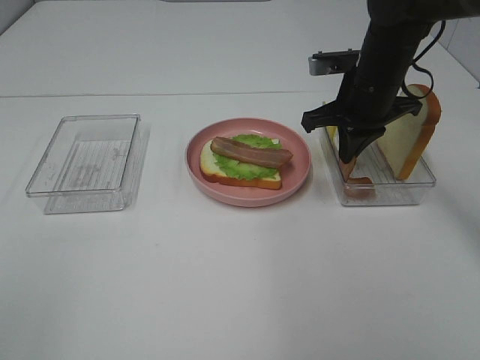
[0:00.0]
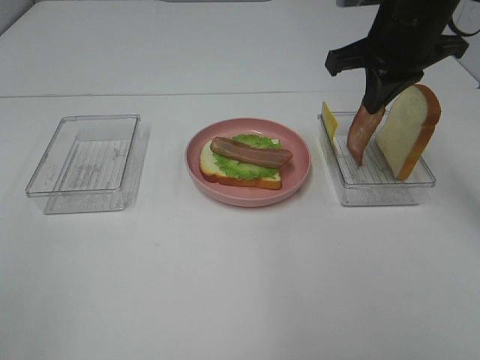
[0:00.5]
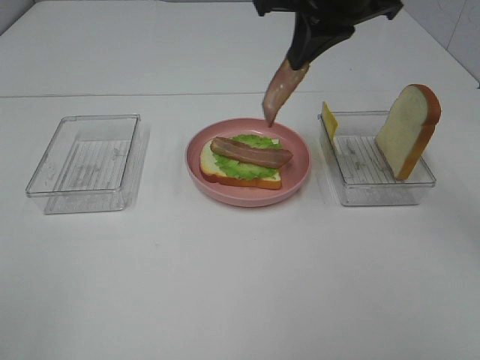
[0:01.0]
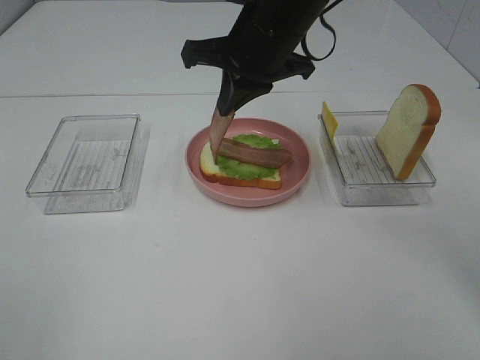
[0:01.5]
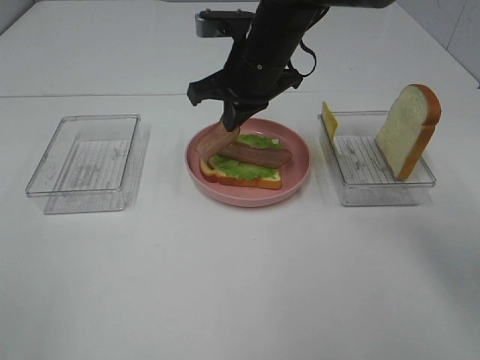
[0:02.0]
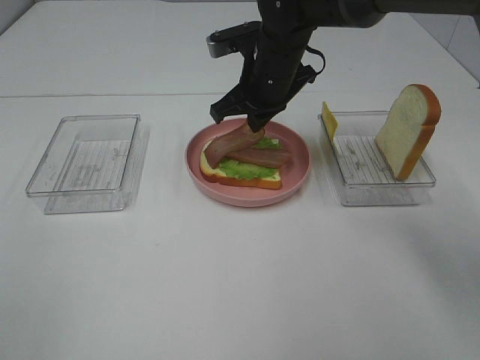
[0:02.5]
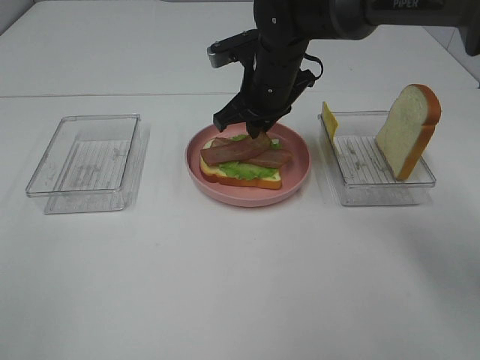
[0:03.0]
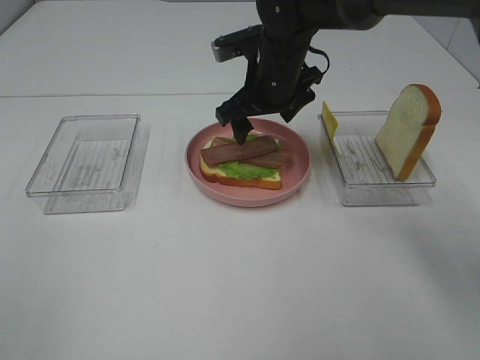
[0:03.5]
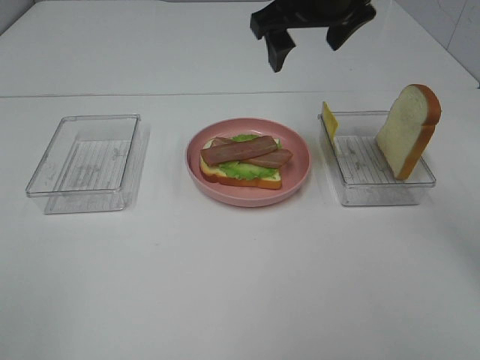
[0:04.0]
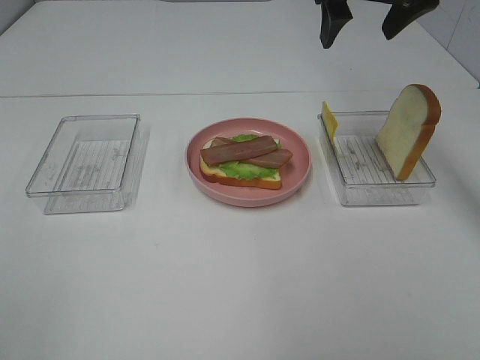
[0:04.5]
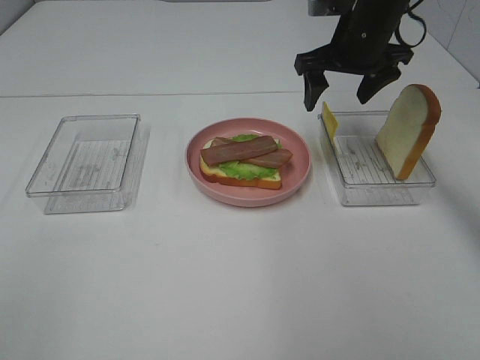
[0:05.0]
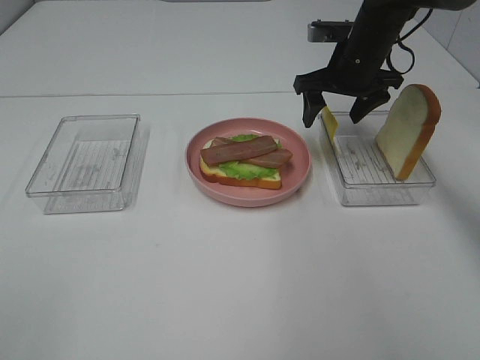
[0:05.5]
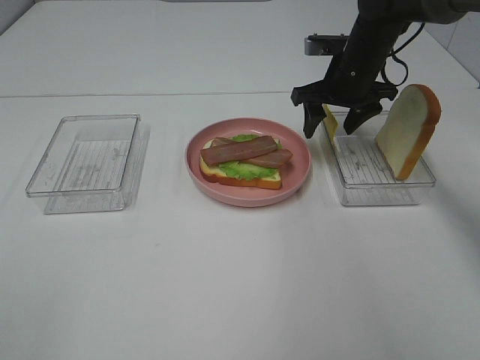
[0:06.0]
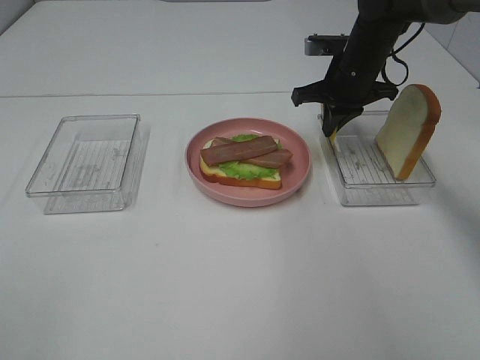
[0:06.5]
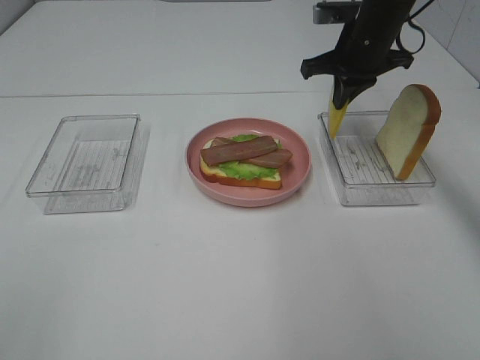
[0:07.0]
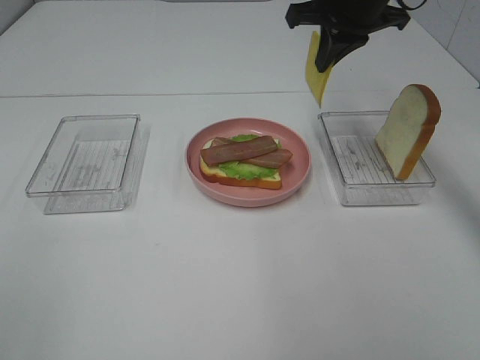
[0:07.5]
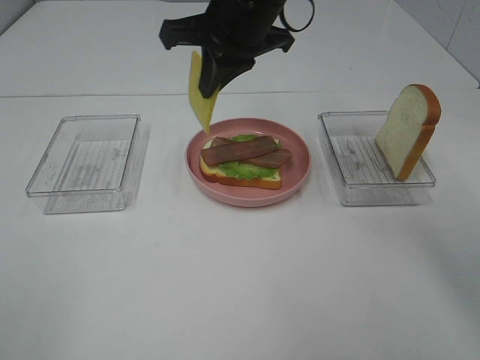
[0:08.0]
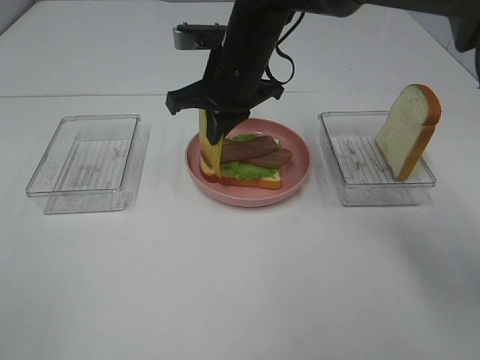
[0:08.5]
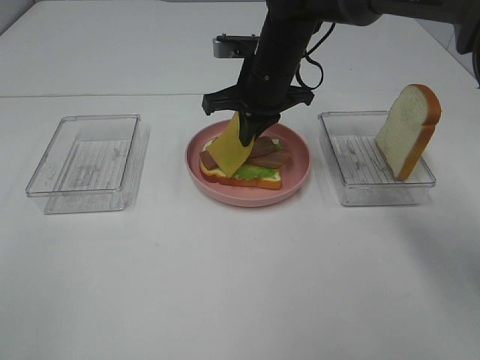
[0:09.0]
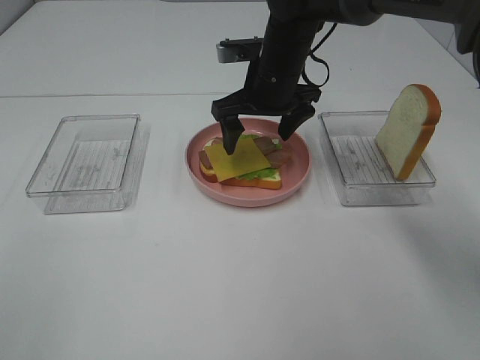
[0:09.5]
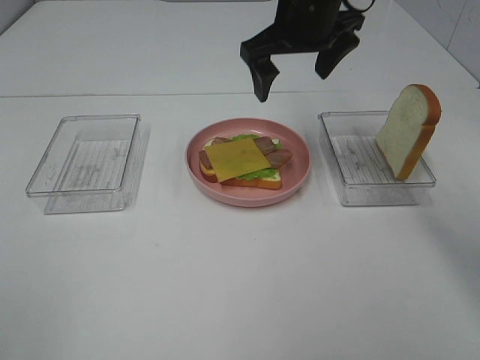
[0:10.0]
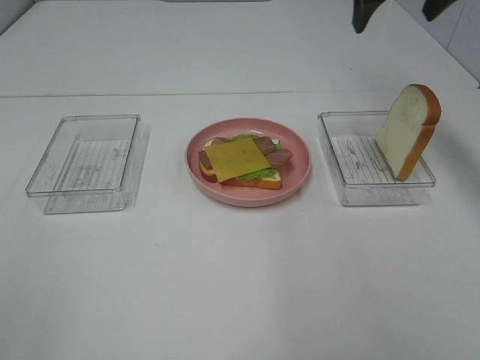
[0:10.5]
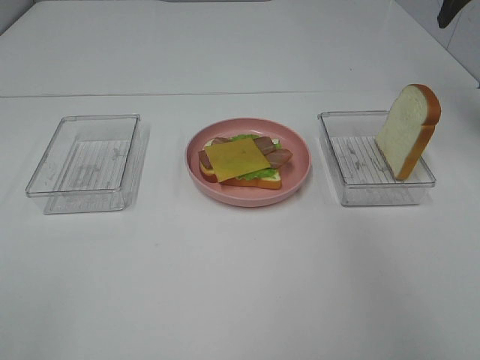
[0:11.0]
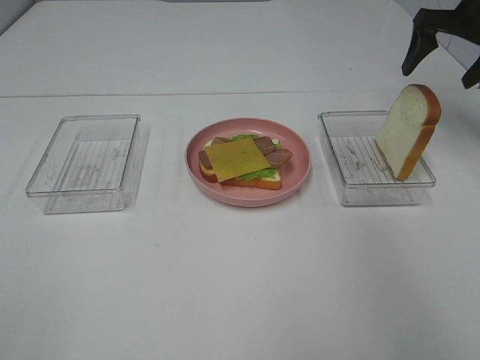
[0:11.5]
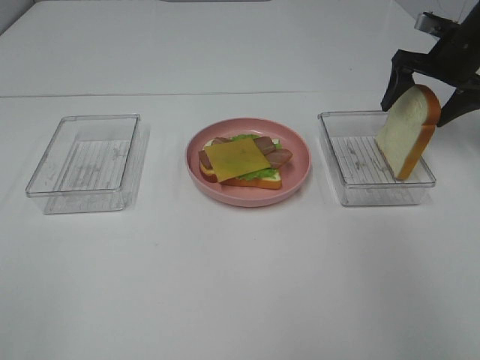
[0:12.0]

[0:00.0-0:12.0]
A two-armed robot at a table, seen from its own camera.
Task of the whole recording: Make sandwiches.
Step, 0:00.5 to 0:03.5: Right hand:place bacon on bacon.
Step, 0:04.0 to 0:06.5: Right hand:grab the cheese slice.
Step, 0:07.0 to 0:09.5: Right hand:place the cheese slice on top of the bacon.
0:00.0 to 0:02.0: The right gripper travels to the left by roughly 15 cm.
0:02.0 to 0:04.0: The right gripper moves upward and to the right, approximately 10 cm, and opens up.
0:04.0 to 0:06.0: The right gripper travels downward, forward and to the right by approximately 20 cm.
0:06.0 to 0:08.0: The right gripper travels to the left, upward and backward by roughly 20 cm, and closes up.
0:08.0 to 0:10.0: The right gripper heads to the right, covering some 5 cm, reaches some 10 cm downward, then returns, and opens its fingers.
0:10.0 to 0:12.0: The right gripper shifts some 25 cm to the right.

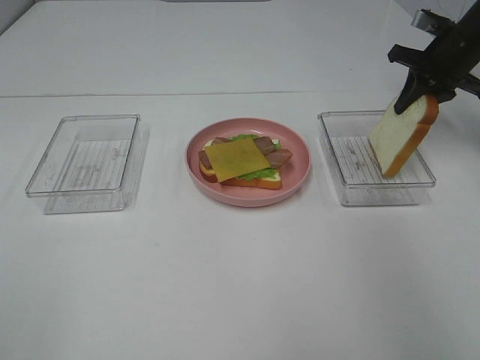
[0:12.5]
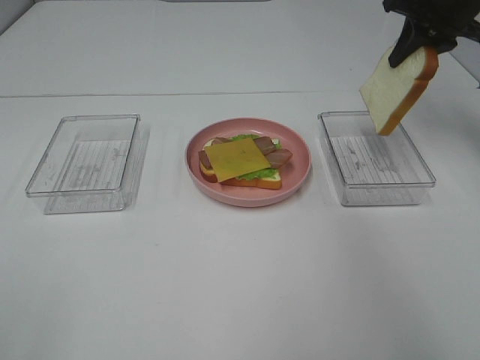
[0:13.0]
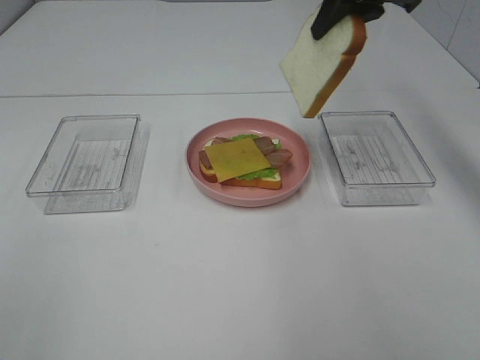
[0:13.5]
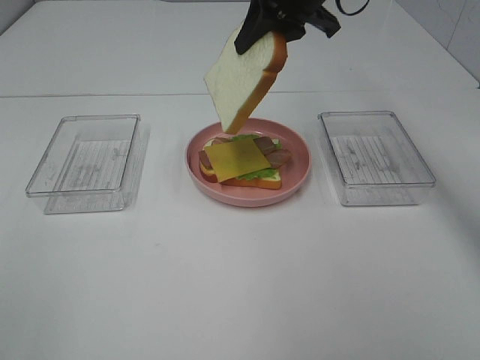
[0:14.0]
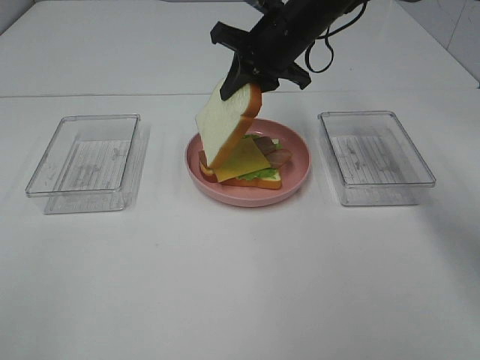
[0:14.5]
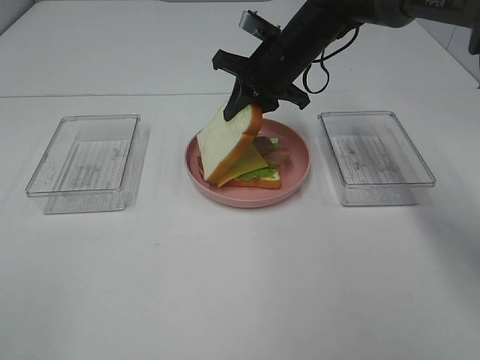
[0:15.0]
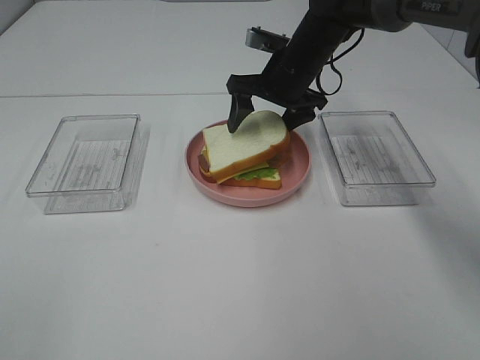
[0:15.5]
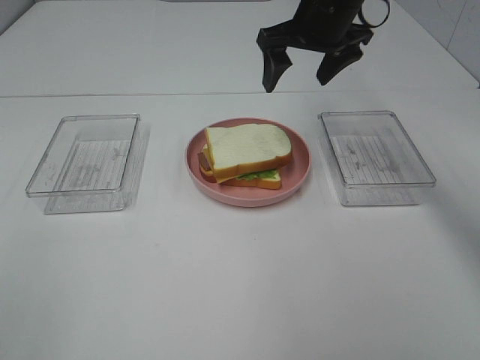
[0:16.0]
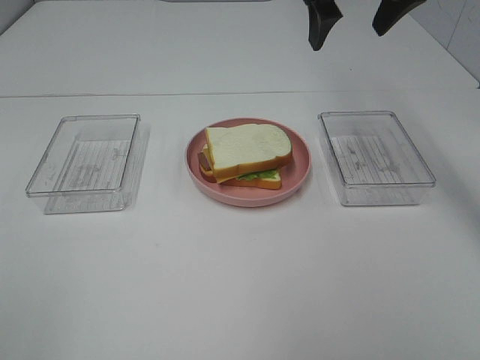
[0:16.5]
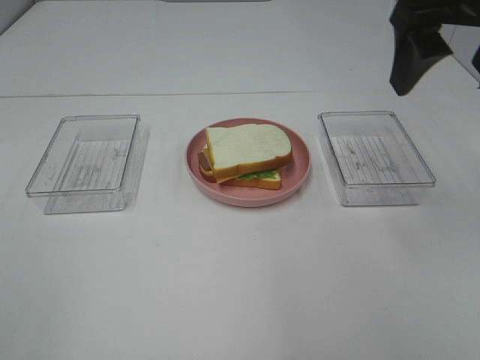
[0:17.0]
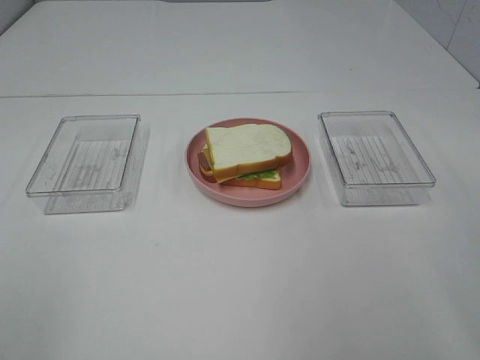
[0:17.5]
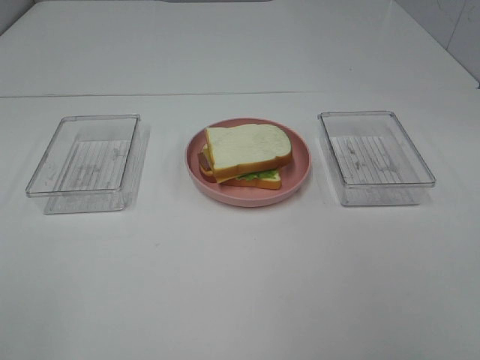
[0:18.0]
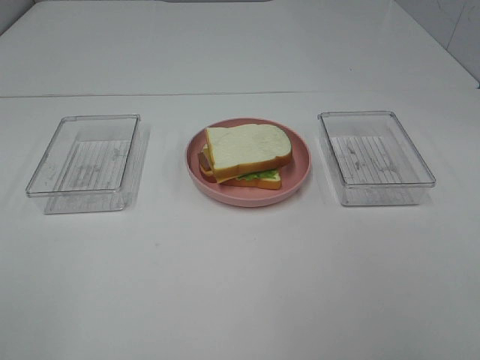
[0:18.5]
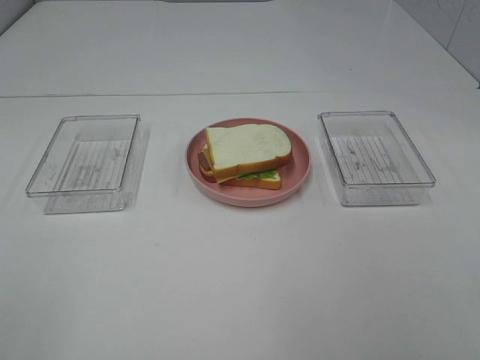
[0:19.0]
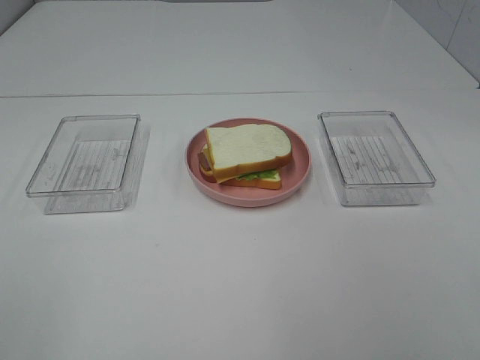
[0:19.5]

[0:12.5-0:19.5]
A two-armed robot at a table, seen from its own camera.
Task of the whole recording: Make sandwiches.
Step, 0:12.5 to 0:16.0: Right hand:place the bread slice on the cheese slice.
0:12.5 to 0:14.5: The right gripper travels to the left by some 25 cm.
0:14.5 to 0:16.0: The right gripper moves upward, roughly 5 cm, and opens.
0:16.0 to 0:17.5: The right gripper is displaced backward and to the right by about 35 cm.

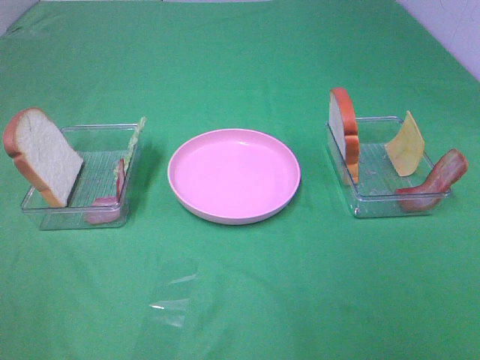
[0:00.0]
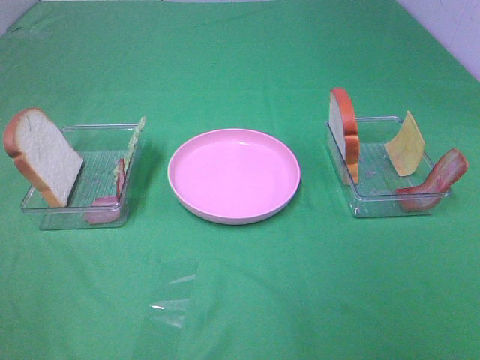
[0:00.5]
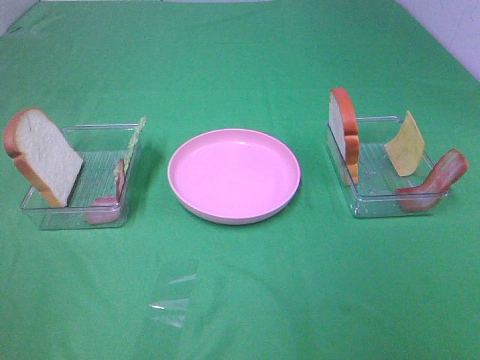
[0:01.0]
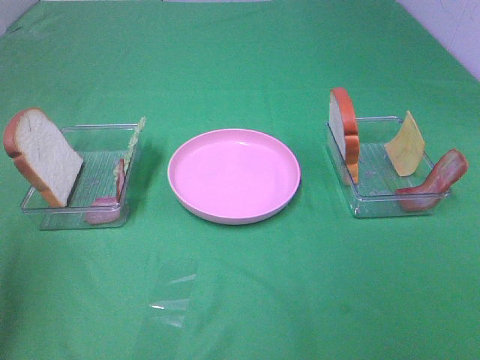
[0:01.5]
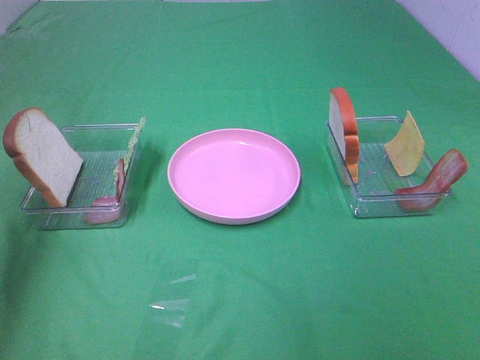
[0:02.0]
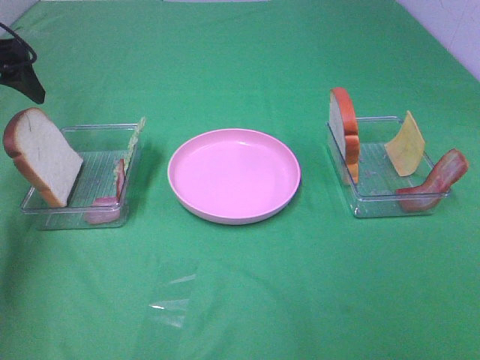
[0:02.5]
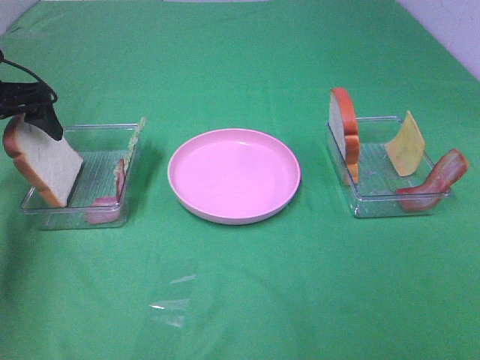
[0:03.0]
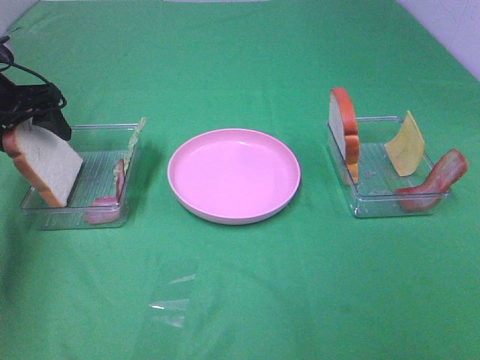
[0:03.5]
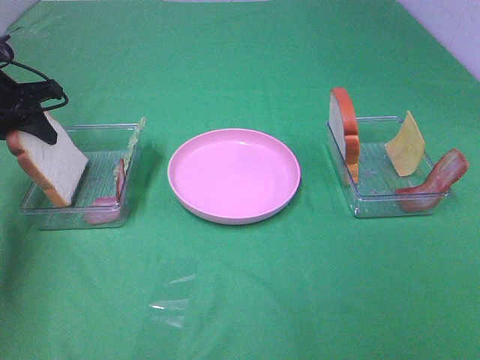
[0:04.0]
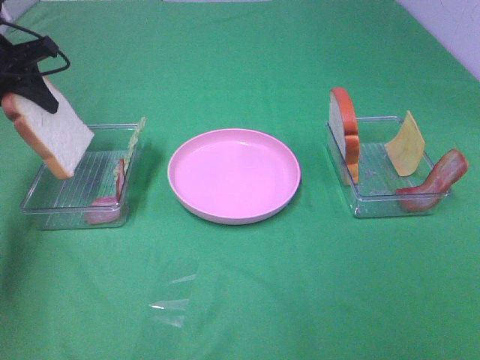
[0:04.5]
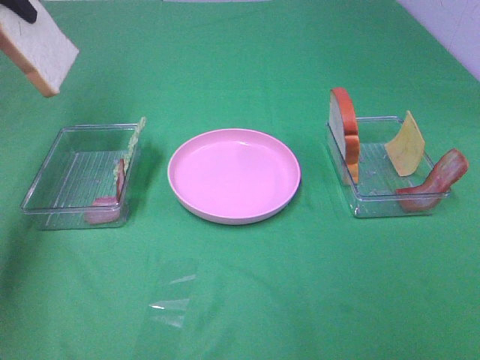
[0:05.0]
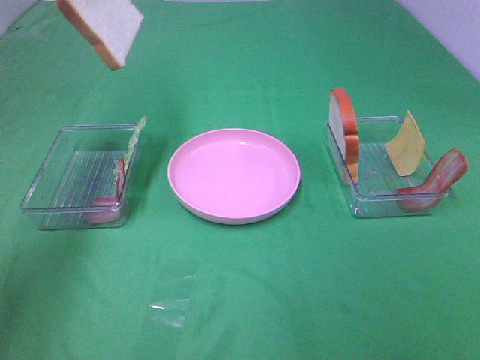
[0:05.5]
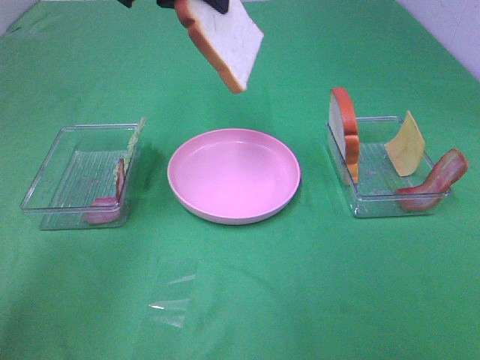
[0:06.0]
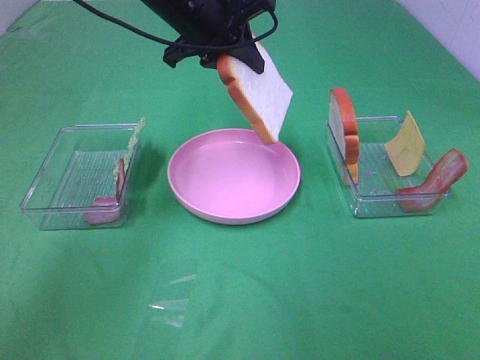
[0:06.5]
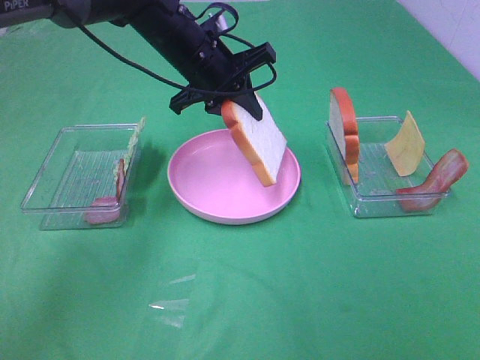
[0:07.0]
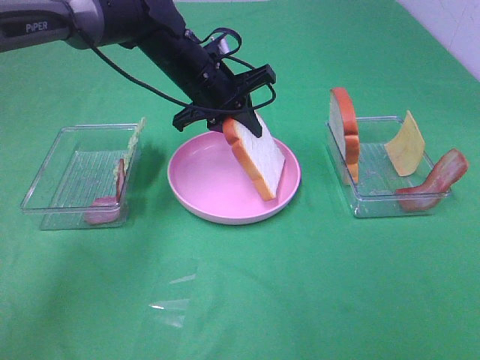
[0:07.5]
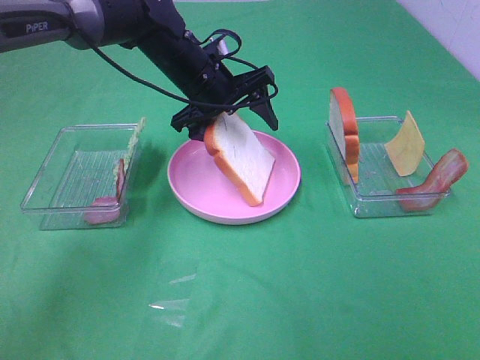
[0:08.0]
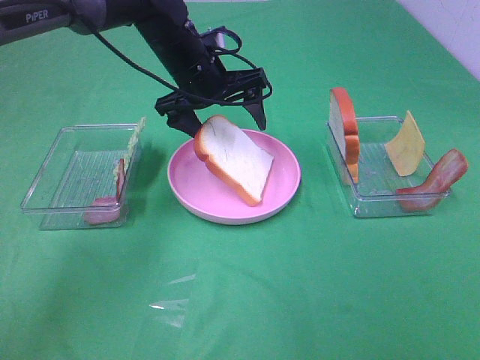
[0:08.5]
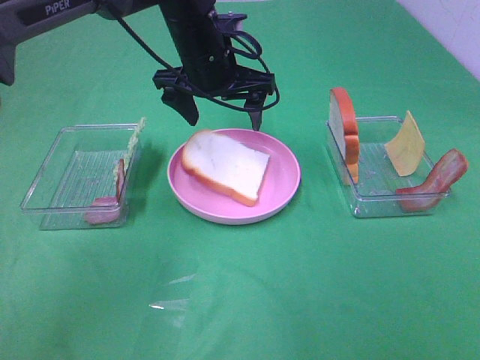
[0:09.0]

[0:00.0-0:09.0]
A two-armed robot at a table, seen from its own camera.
Task of the whole recording: Make sandwiches.
Step, 0:00.0 to 0:04.0: Left hand:grab the bread slice.
0:00.0 to 0:02.0: The left gripper moves forward, approximately 30 cm.
0:02.0 to 0:04.5: The left gripper goes approximately 15 cm forward and downward, and closes.
0:04.5 to 0:07.0: The left gripper moves to the right, some 25 cm.
0:07.0 to 0:09.0: The left gripper opens its fingers.
